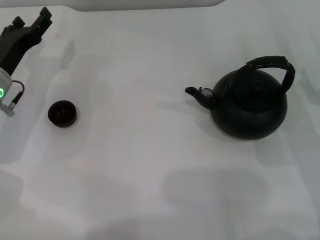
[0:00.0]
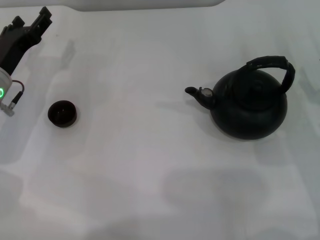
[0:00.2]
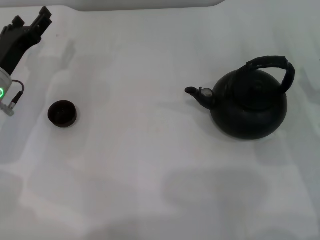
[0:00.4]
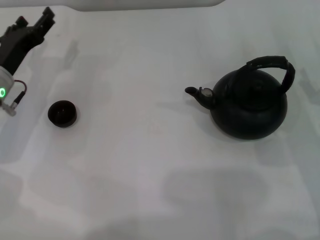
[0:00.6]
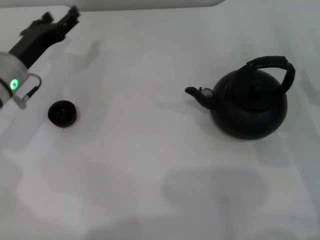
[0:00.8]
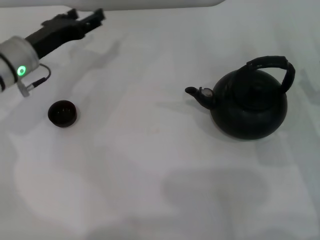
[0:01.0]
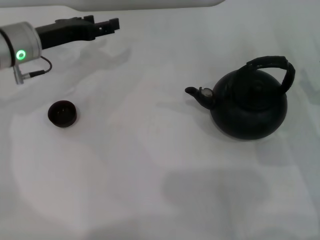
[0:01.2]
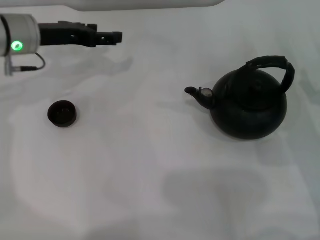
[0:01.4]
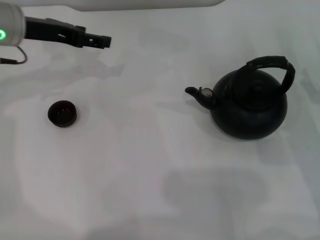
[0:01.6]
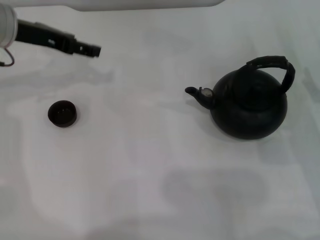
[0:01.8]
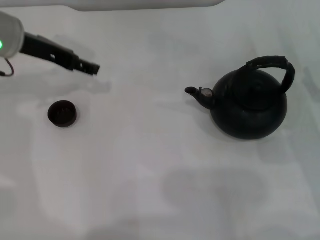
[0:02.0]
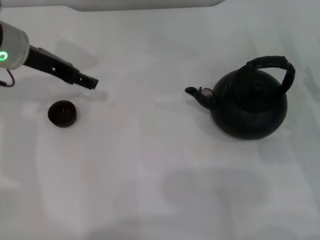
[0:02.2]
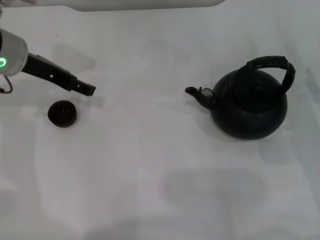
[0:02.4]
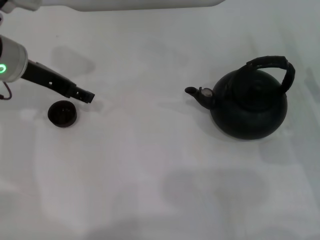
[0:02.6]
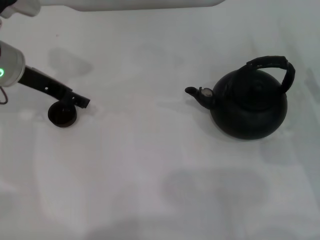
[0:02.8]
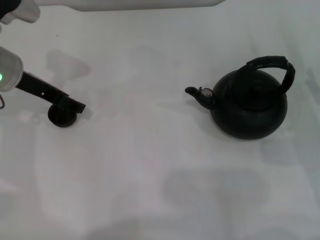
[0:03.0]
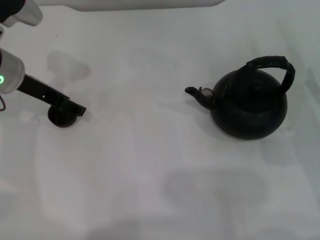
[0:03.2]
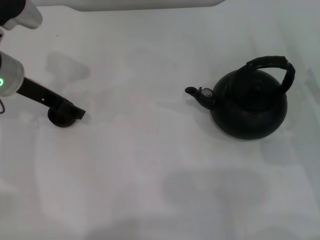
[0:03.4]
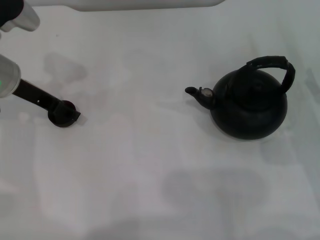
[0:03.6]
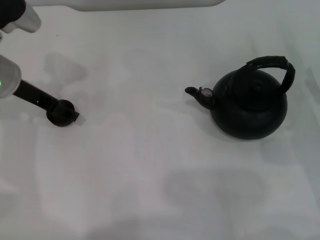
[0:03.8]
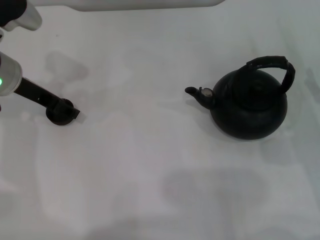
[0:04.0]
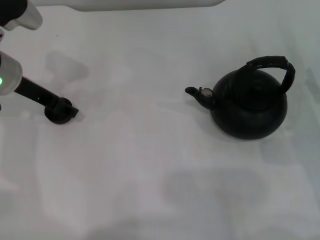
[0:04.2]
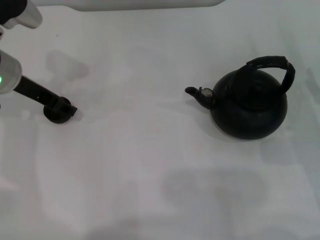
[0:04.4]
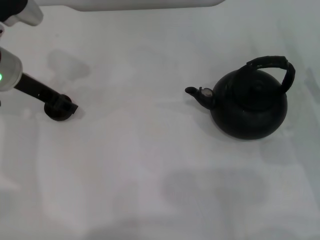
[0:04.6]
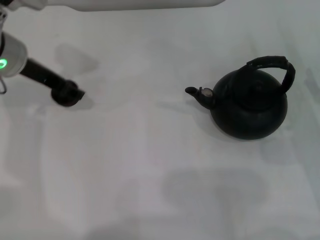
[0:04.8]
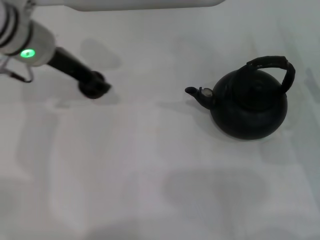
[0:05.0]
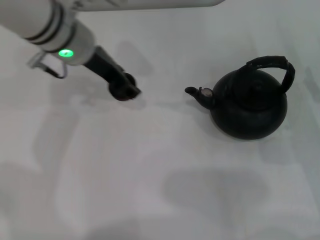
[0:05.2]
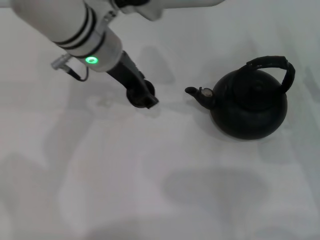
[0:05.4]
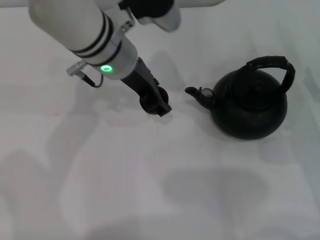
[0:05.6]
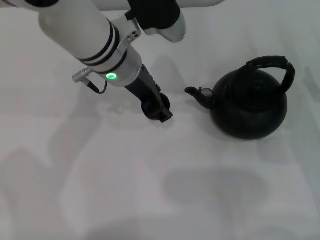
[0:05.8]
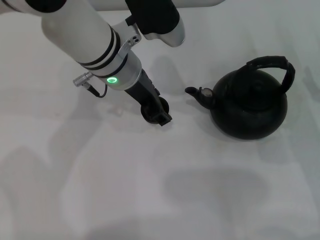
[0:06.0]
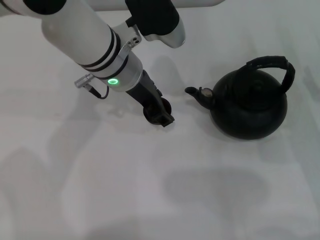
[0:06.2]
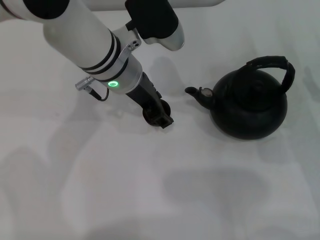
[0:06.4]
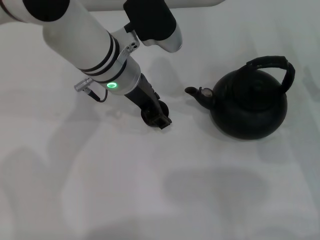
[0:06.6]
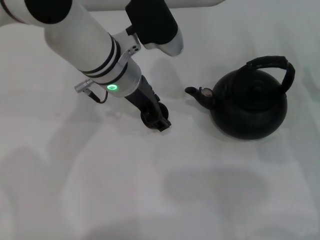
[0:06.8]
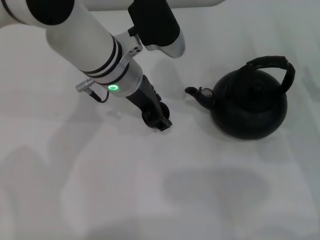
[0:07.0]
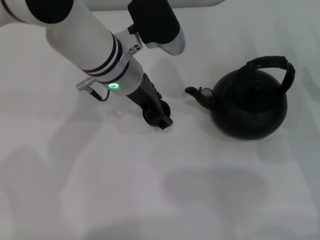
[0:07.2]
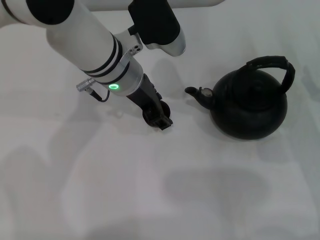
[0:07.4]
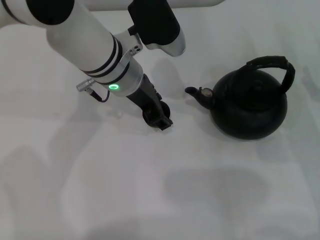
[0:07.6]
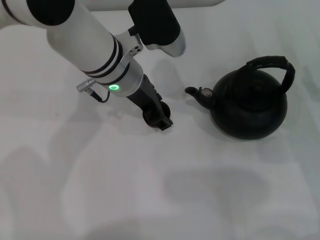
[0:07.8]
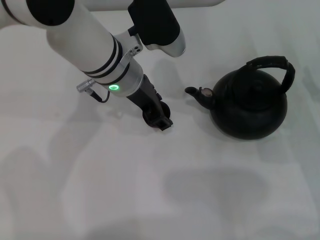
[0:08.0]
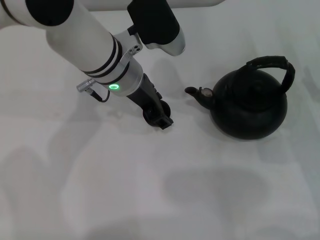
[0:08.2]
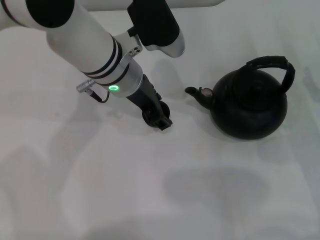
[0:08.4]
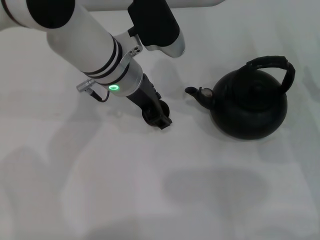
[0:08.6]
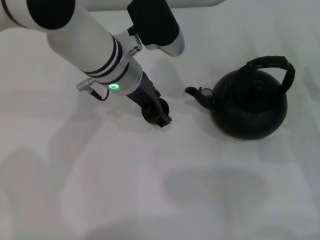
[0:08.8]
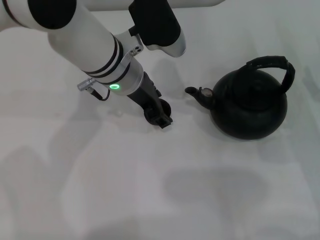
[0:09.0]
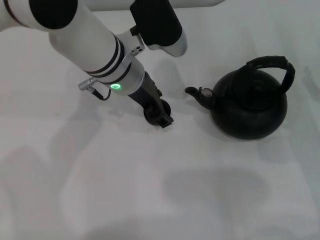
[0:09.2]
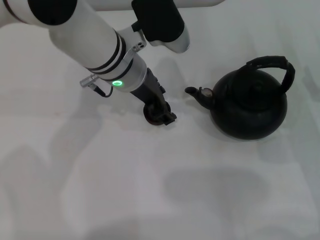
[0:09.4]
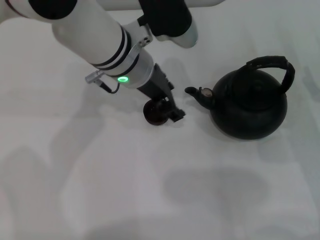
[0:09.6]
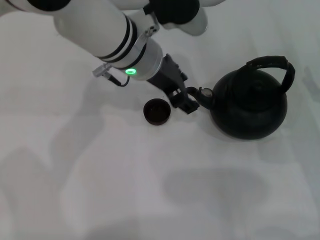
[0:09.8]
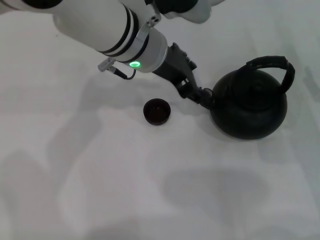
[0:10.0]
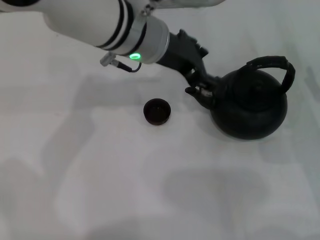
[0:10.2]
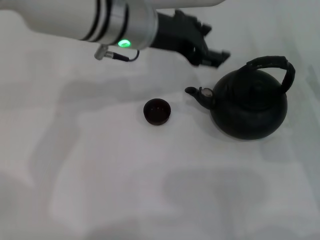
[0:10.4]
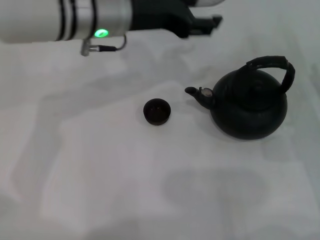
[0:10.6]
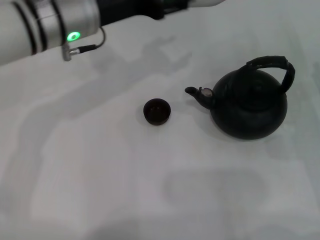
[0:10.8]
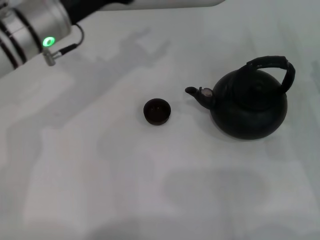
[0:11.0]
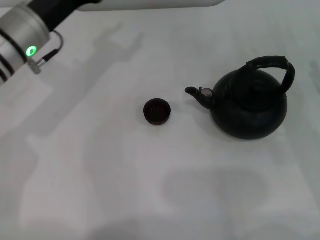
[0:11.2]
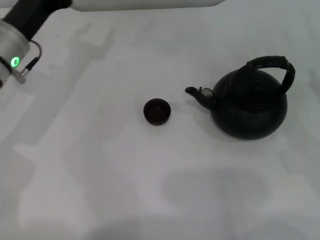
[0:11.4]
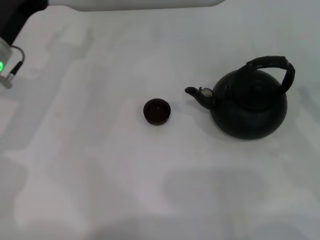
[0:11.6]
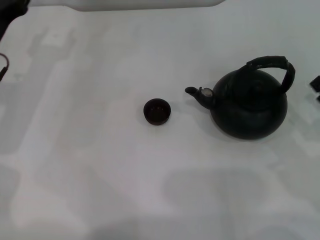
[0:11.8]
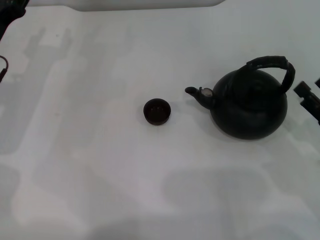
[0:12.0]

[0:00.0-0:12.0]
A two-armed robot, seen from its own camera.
Task of the whole recording: Grasp the handle of the teapot with one hand and pour tea into the teacup.
Step, 0:00.0 to 0:04.6: Pick up the teacup with the left gripper.
Step, 0:04.8 to 0:10.2: Place the teacup in the center of view with the left gripper.
0:00.0 to 0:01.6: The left gripper travels upward and forward by some 15 cm.
0:03.0 to 0:04.4: Both grippers stay about where they are.
0:04.4 to 0:06.0: The left gripper is displaced to the right by about 15 cm, and closes.
0:06.0 to 0:07.6: The two grippers keep their place.
0:07.6 to 0:09.0: Neither gripper changes place.
0:09.0 to 0:10.4: The left gripper travels upward by roughly 5 cm.
0:10.4 to 0:12.0: The left gripper goes roughly 25 cm to the left and downward; the right gripper heads backward, covering about 5 cm.

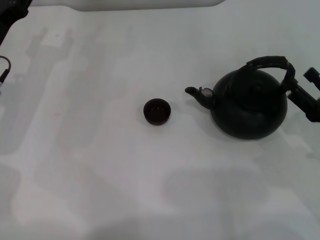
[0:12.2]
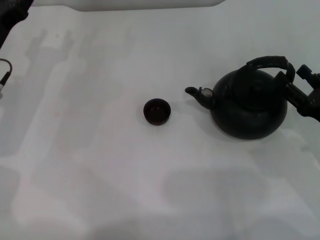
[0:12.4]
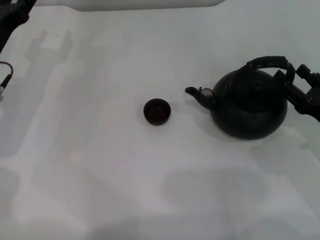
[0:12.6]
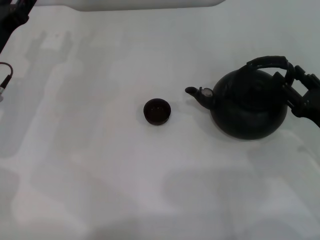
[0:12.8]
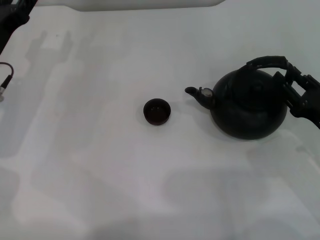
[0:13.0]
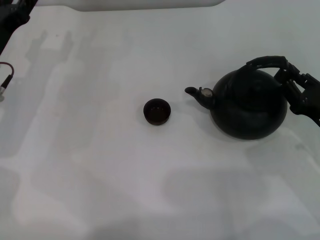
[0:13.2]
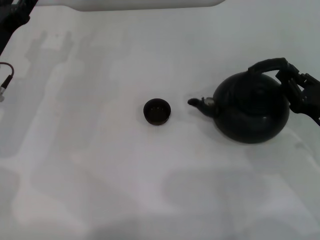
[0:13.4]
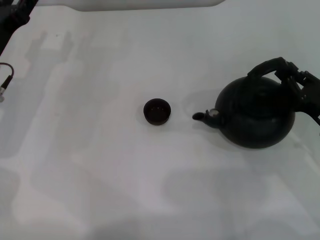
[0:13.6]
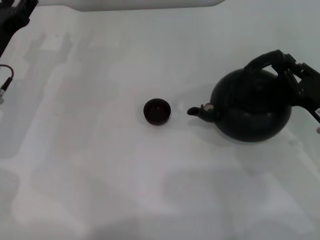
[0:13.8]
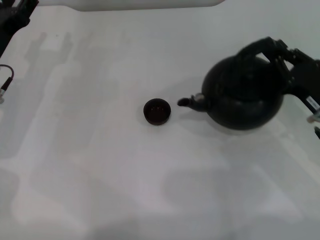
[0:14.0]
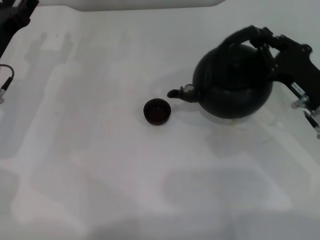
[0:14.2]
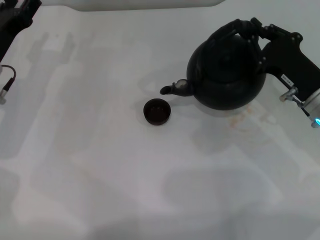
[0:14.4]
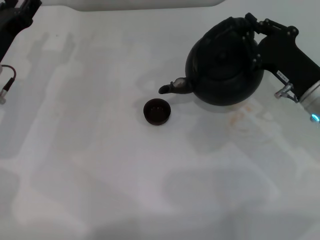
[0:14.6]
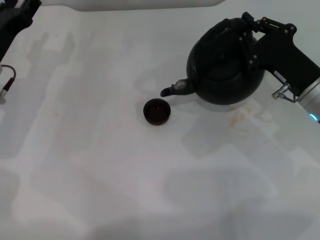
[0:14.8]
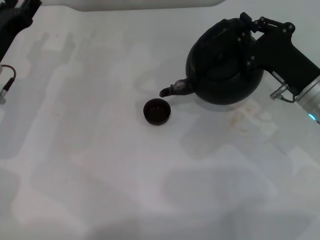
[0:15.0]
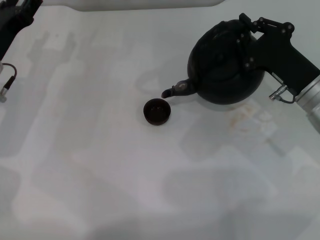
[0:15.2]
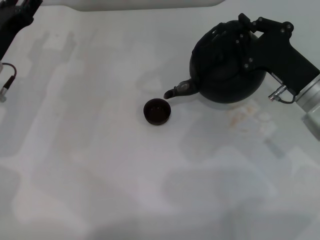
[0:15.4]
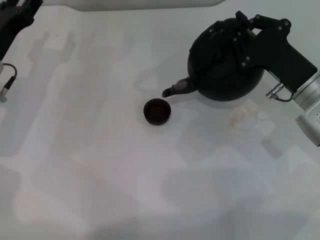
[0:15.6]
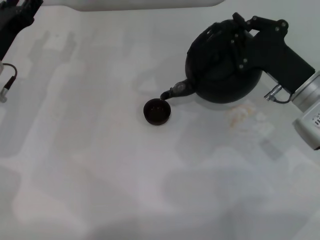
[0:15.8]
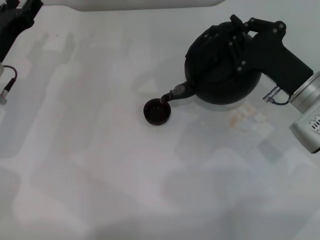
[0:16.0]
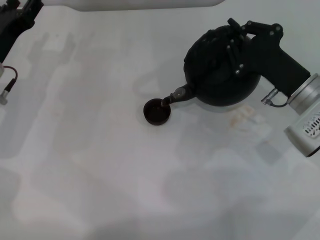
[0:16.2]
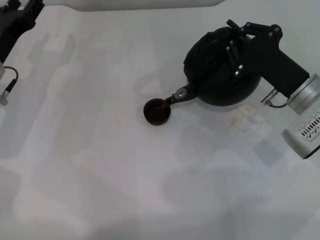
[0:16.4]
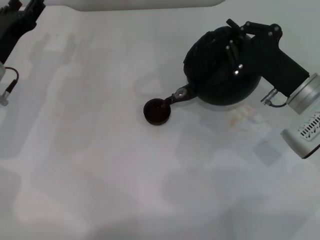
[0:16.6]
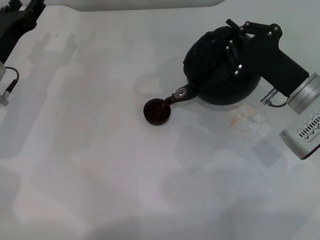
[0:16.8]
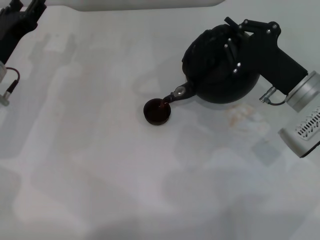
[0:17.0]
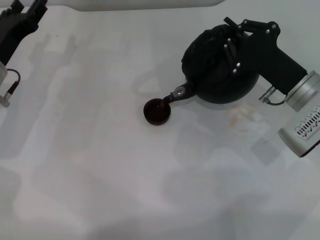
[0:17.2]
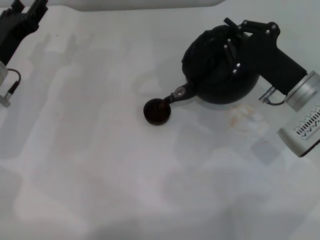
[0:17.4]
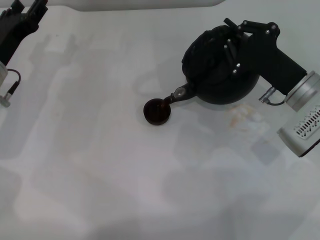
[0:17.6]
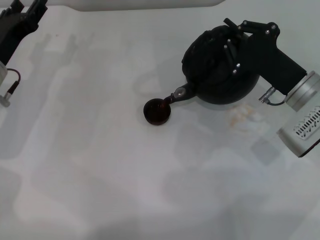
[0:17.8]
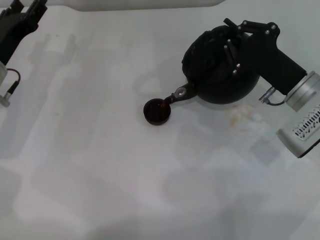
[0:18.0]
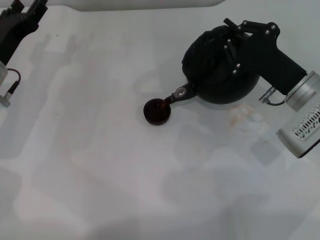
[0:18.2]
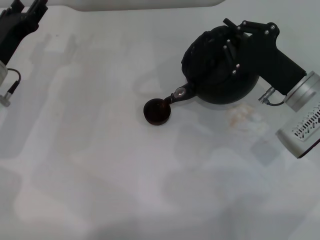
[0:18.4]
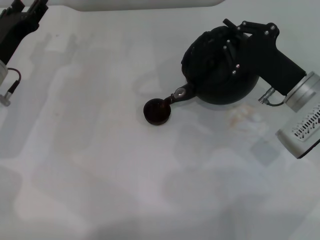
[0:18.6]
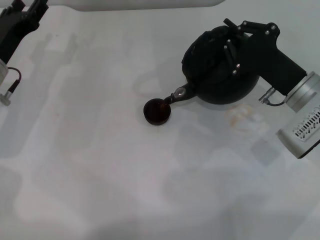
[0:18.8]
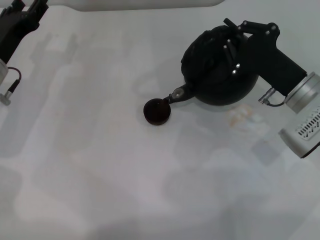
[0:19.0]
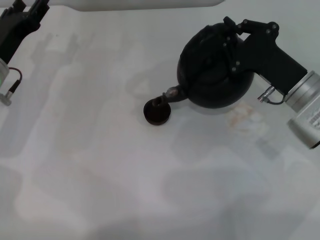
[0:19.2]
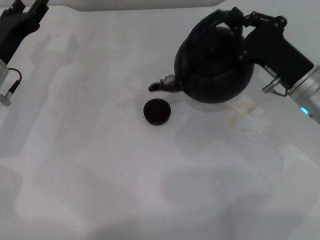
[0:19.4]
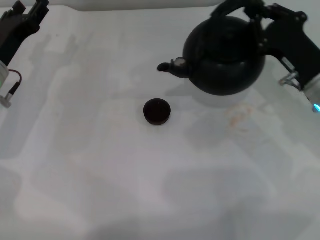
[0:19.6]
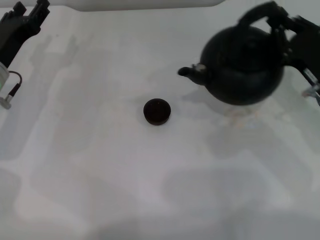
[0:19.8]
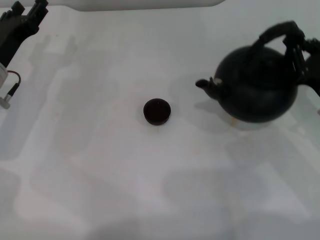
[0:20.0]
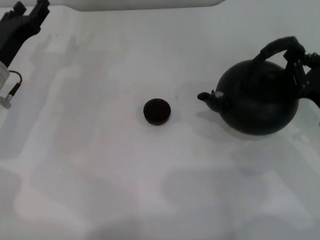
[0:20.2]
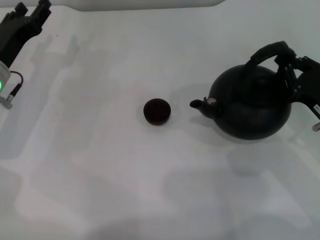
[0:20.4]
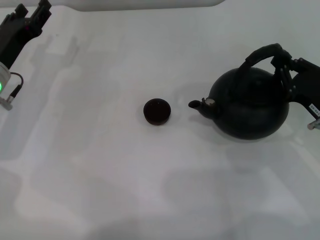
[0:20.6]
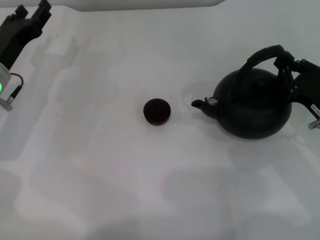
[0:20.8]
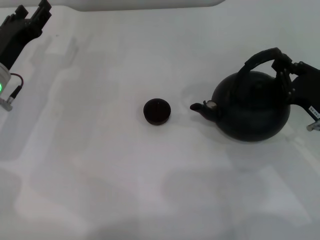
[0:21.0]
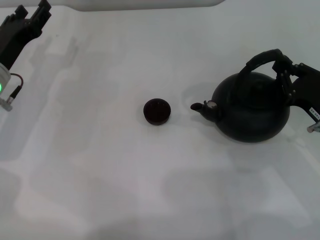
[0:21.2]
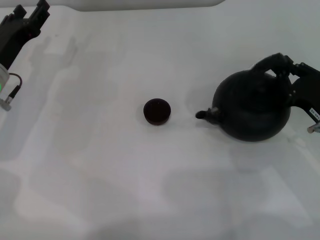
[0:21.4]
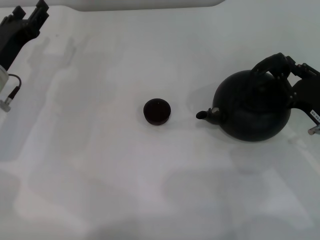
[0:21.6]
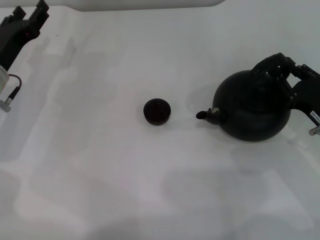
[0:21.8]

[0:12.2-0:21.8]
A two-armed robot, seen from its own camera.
Task of the whole recording: Grasp the handle of the teapot with one hand and pour tea into the teacup.
Step, 0:14.2 to 0:19.4: Pour tea into the teacup with the right gripper.
0:12.2 to 0:13.8: The right gripper closes.
0:13.8 to 0:15.4: The right gripper heads forward and to the left, covering approximately 10 cm.
0:15.4 to 0:17.0: The grippers move only a little.
0:17.0 to 0:18.6: Neither gripper changes place.
0:18.6 to 0:20.2: The right gripper goes about 10 cm to the right and backward.
0:20.2 to 0:21.8: The grippers stay close to where they were, moving slightly.
